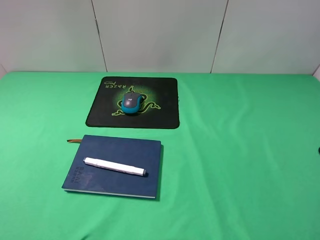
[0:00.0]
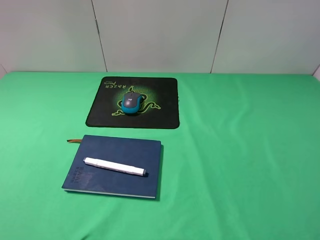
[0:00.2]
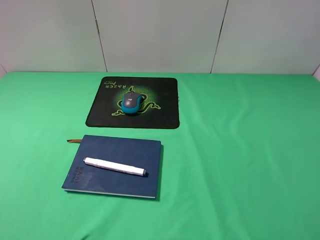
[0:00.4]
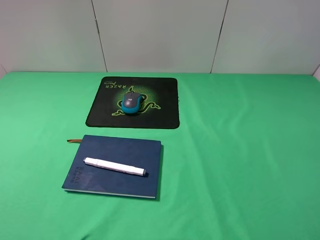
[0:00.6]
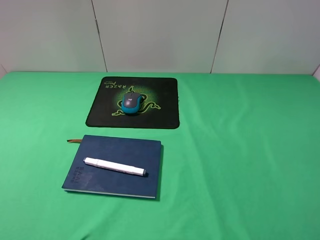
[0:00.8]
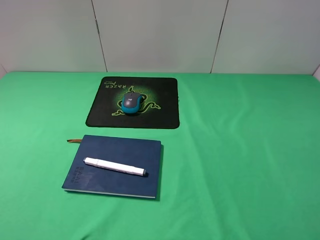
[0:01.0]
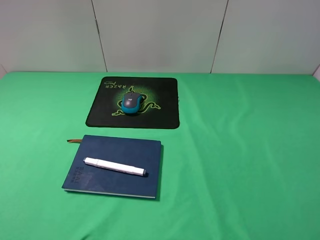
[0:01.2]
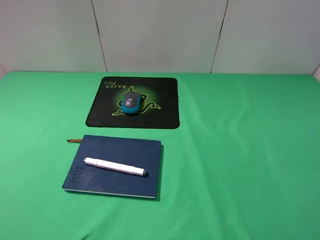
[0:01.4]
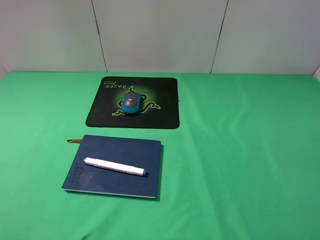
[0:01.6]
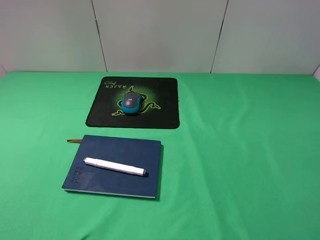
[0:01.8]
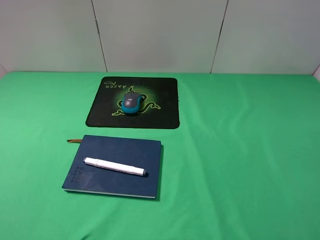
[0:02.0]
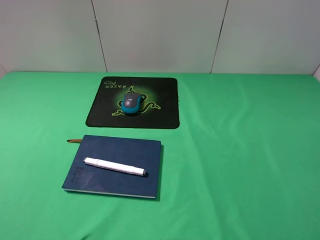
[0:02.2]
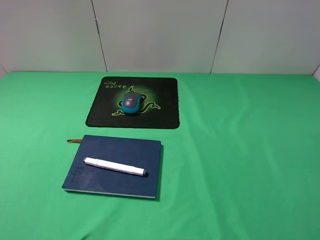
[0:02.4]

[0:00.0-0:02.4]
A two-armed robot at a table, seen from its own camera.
0:01.2 to 0:02.4: The two grippers keep their place.
